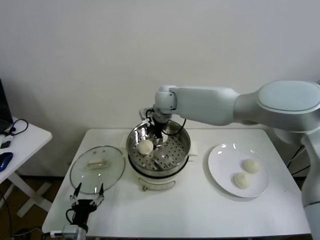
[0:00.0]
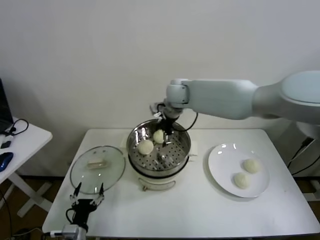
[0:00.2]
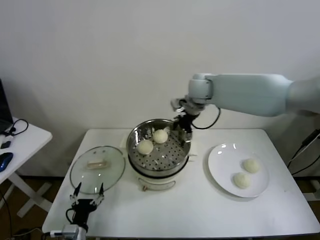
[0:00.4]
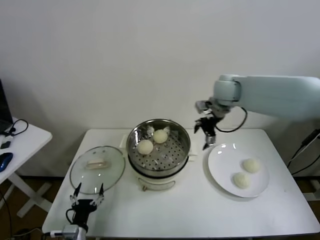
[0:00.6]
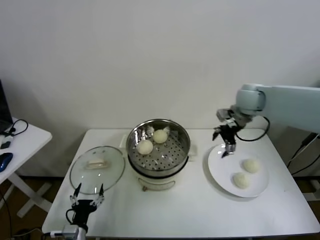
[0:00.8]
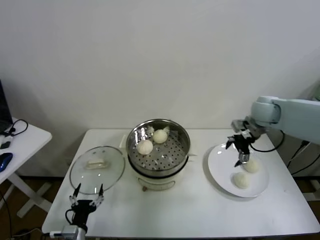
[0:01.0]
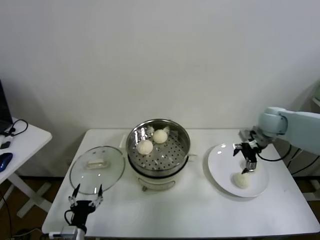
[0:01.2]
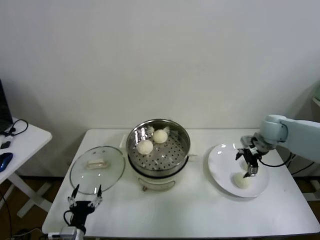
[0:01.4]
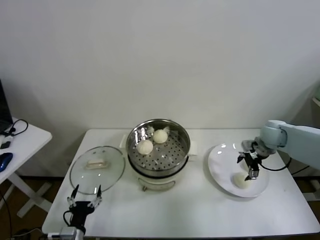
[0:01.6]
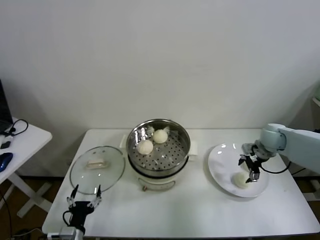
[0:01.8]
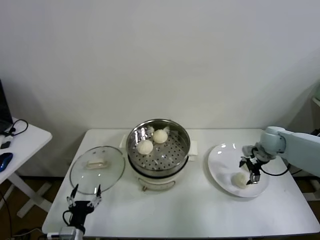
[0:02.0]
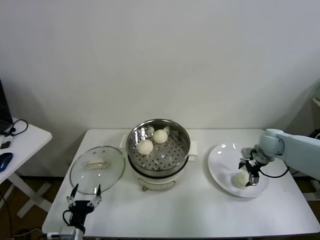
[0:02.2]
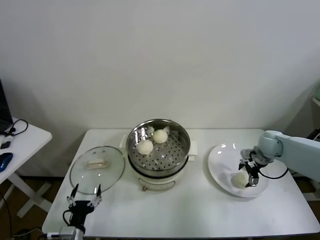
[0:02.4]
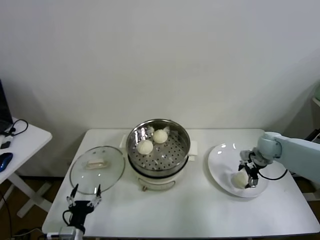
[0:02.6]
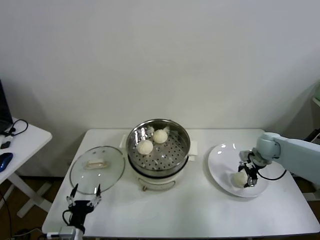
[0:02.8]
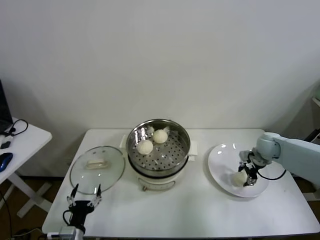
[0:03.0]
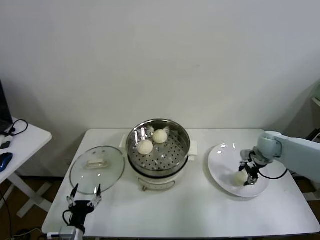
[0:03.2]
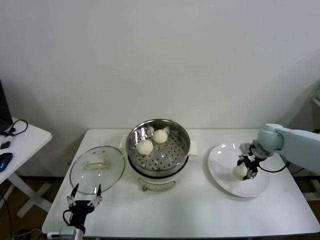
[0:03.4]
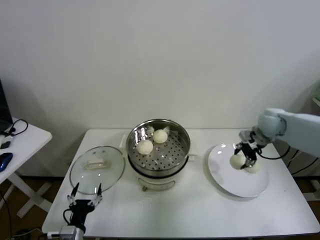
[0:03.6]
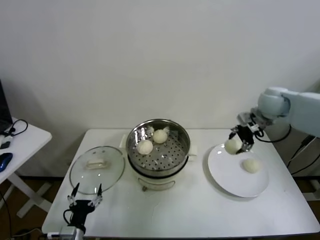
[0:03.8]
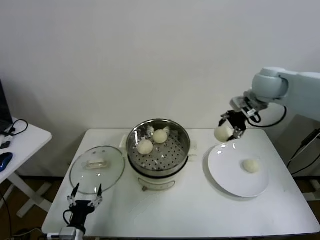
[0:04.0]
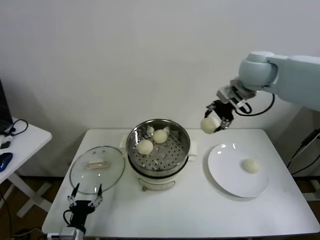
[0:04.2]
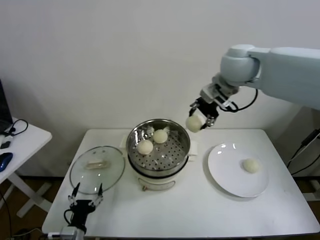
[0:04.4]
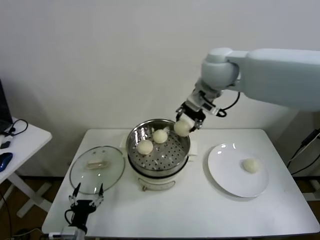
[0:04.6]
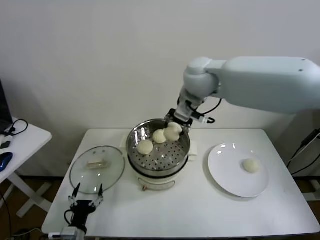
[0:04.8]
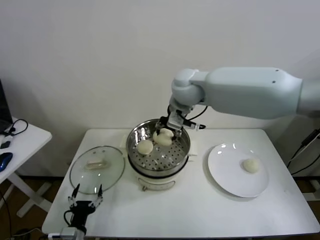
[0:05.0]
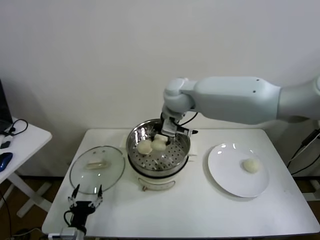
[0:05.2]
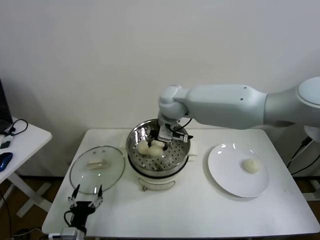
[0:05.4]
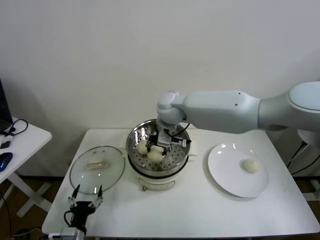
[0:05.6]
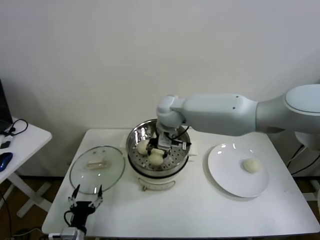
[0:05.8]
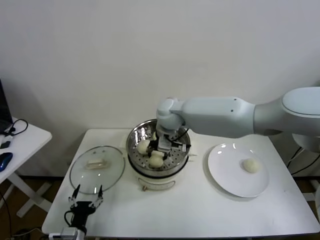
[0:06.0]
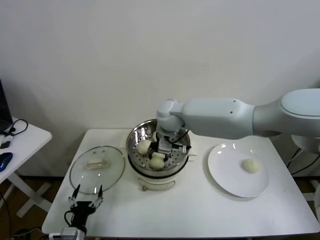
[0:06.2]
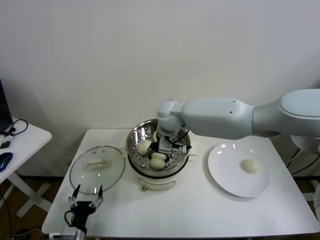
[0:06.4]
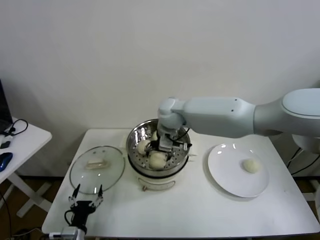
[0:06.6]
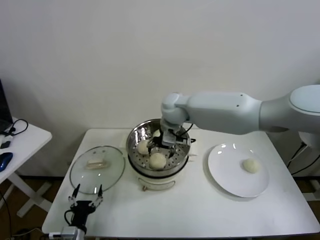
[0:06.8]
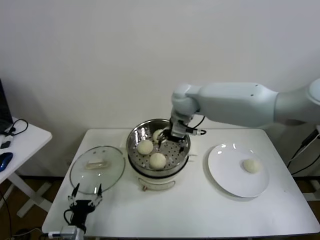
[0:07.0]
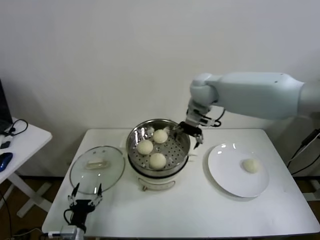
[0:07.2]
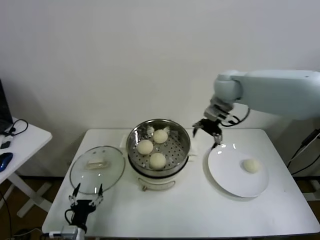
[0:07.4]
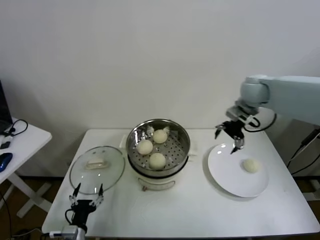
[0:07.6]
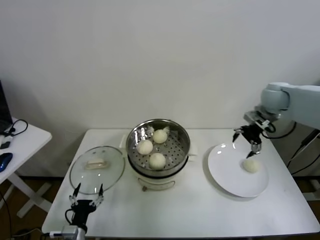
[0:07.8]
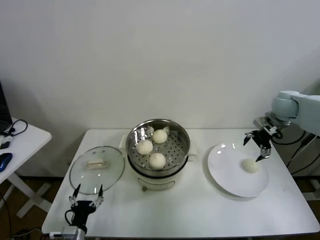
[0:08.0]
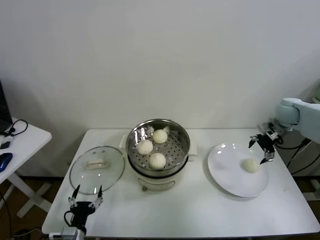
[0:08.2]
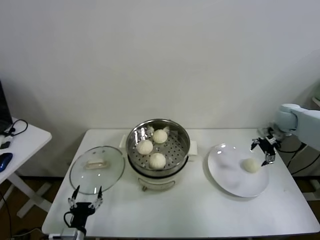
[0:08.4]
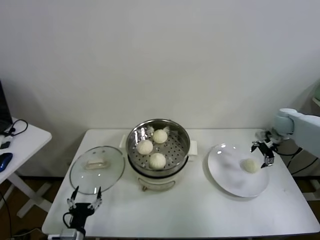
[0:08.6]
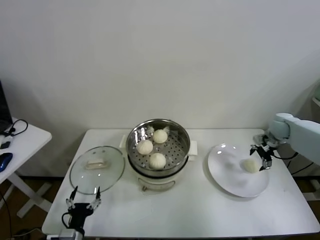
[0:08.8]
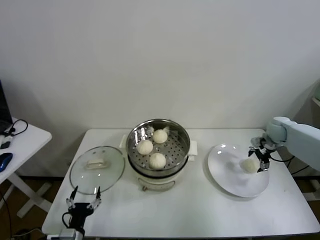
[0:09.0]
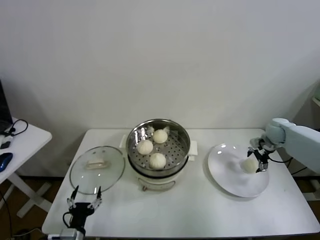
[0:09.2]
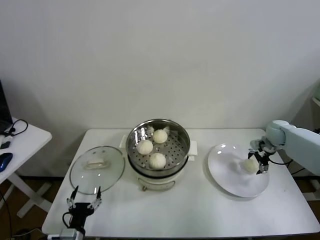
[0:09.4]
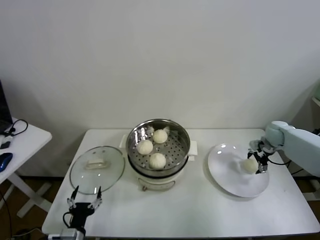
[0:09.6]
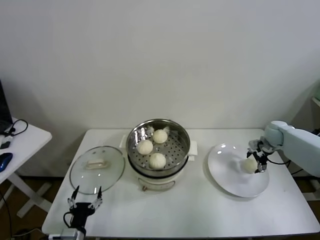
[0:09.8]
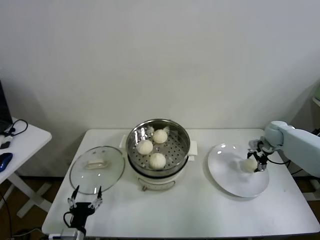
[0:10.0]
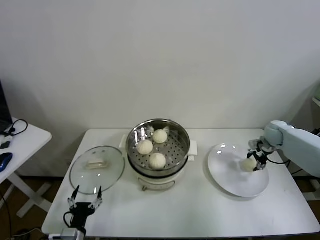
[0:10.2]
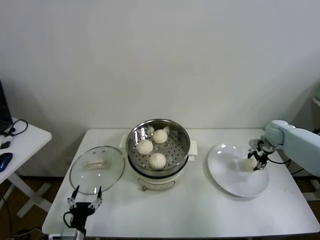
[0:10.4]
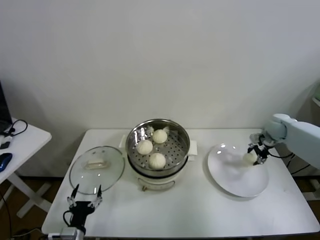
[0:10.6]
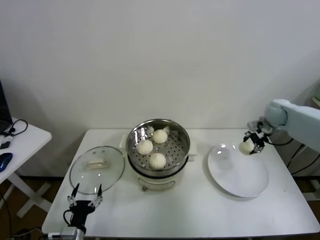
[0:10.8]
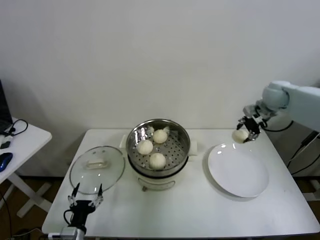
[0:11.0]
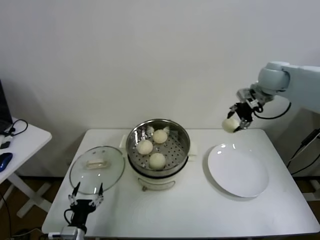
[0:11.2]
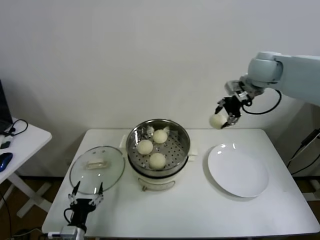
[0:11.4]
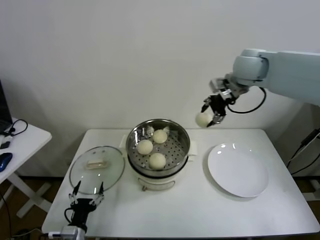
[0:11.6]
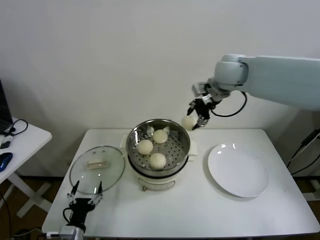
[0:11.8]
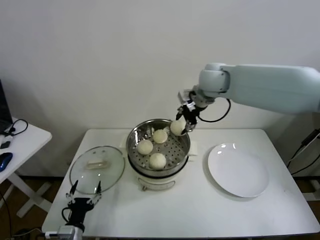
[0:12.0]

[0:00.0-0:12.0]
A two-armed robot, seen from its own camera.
Task of the whole recording: take steamed baozi put them in steamer.
Step, 0.2 to 2.8 s: Grasp the baozi in the plate with right gripper.
Step, 3.0 to 6.8 s: Place the baozi on the steamer with right gripper.
Step, 7.0 to 10.0 s: Grasp the baozi in the plate with right gripper.
0.0 to 1.6 s: The right gripper is displaced to the right by about 35 cm.
1.6 to 3.0 s: The right gripper goes some 5 cm downward, and closes.
3.0 to 4.4 s: The right gripper moves upward and to the left, some 40 cm.
4.4 to 6.0 s: The right gripper is displaced downward and to the left by some 25 cm.
6.0 to 7.6 s: The right gripper is displaced to the right by approximately 30 cm, and opens its fingers.
7.6 to 9.0 s: The right gripper shifts about 25 cm downward and to the right.
9.0 to 10.4 s: The right gripper closes up.
10.4 to 12.0 s: The right gripper shifts about 40 cm to the left and upward.

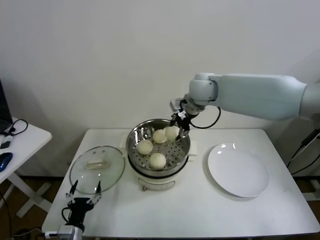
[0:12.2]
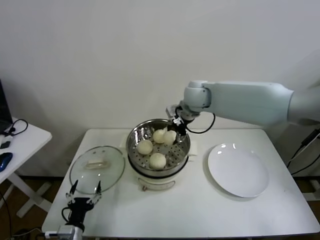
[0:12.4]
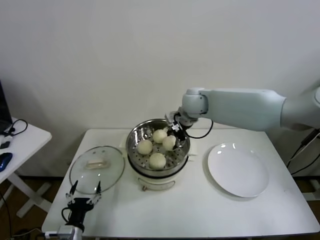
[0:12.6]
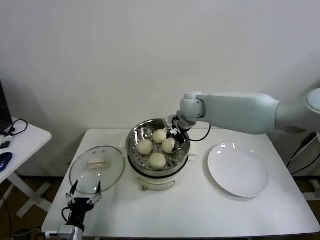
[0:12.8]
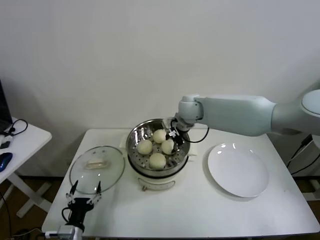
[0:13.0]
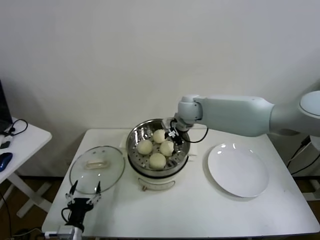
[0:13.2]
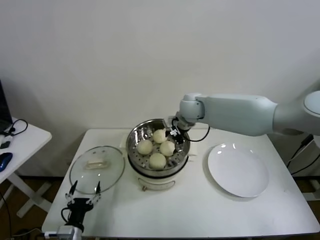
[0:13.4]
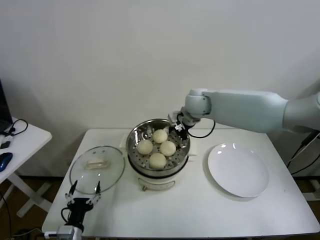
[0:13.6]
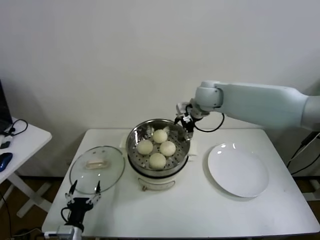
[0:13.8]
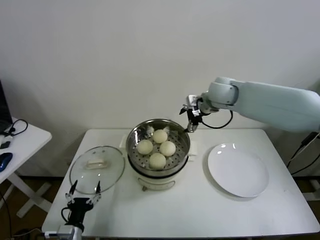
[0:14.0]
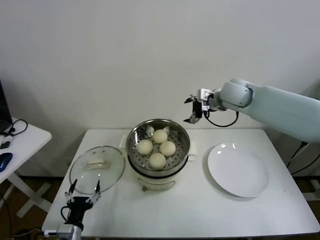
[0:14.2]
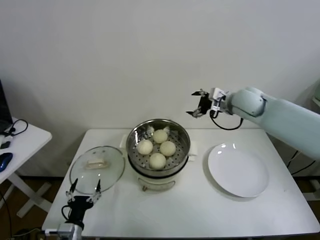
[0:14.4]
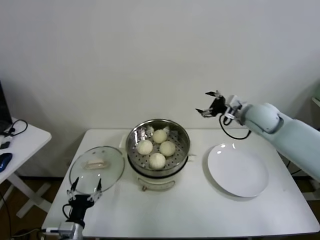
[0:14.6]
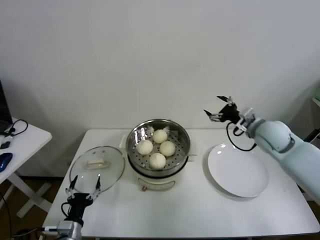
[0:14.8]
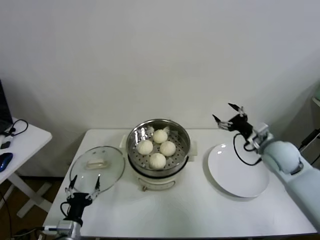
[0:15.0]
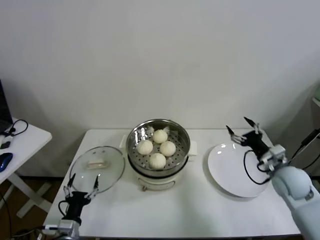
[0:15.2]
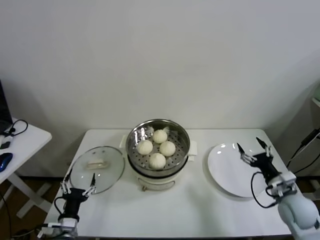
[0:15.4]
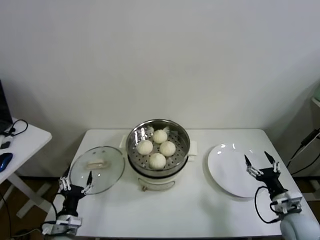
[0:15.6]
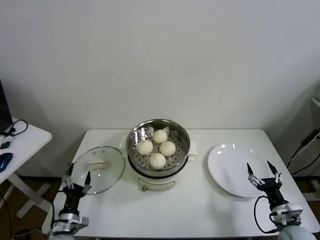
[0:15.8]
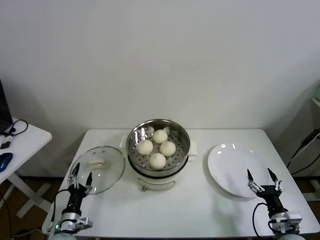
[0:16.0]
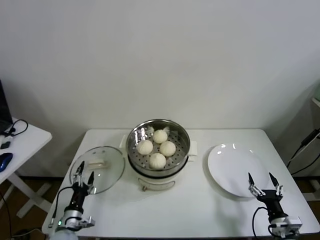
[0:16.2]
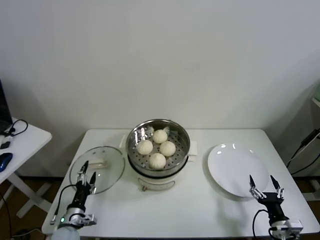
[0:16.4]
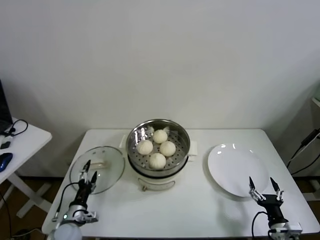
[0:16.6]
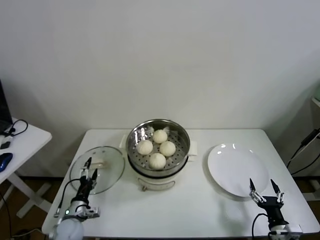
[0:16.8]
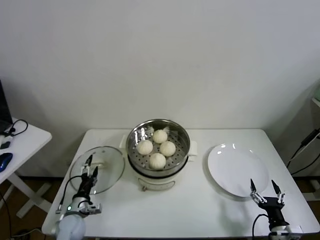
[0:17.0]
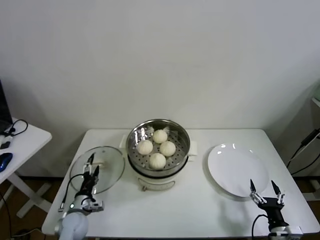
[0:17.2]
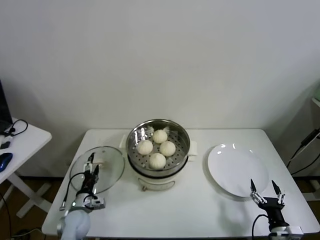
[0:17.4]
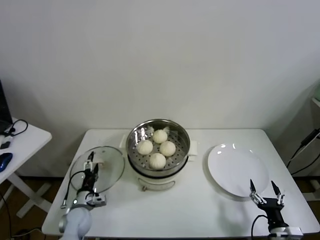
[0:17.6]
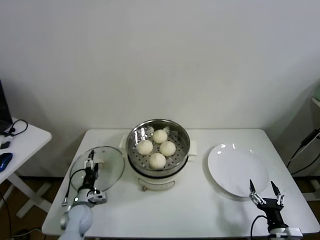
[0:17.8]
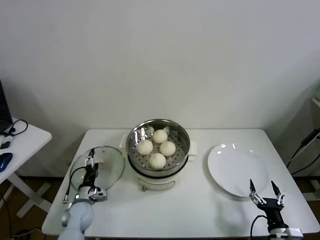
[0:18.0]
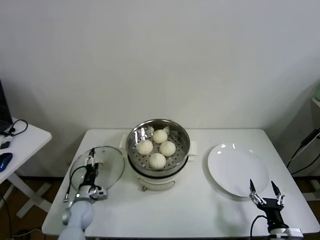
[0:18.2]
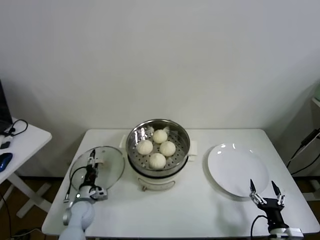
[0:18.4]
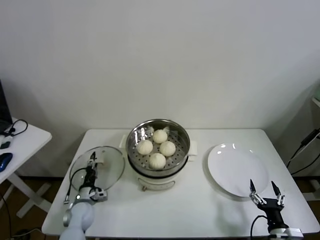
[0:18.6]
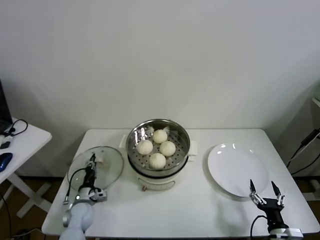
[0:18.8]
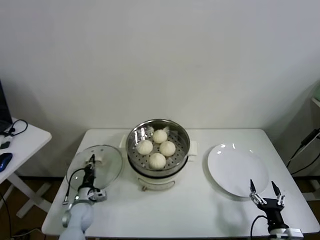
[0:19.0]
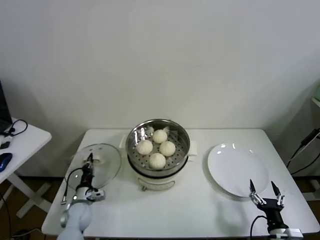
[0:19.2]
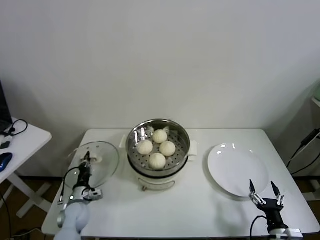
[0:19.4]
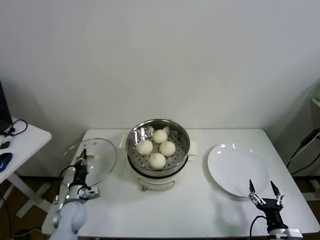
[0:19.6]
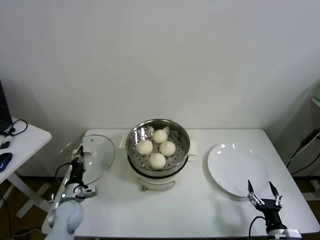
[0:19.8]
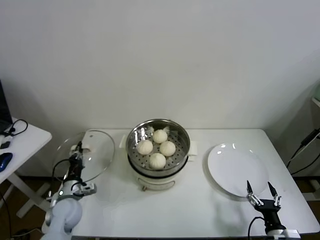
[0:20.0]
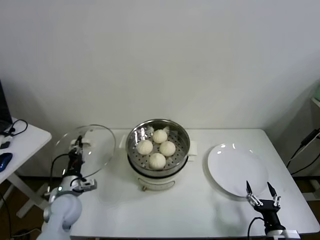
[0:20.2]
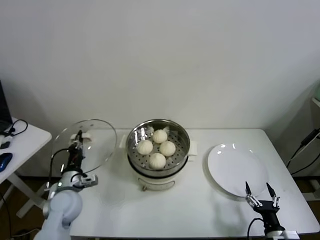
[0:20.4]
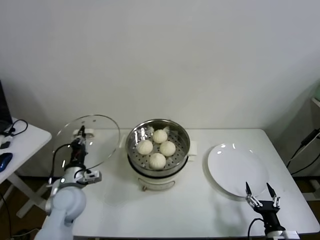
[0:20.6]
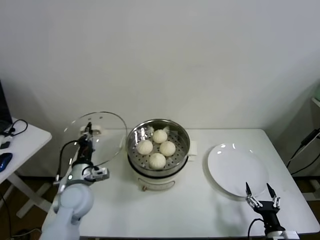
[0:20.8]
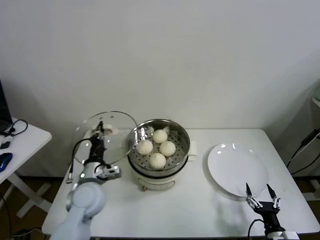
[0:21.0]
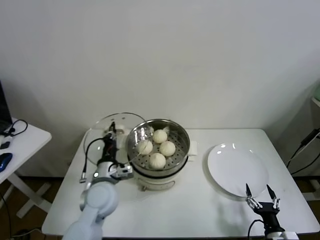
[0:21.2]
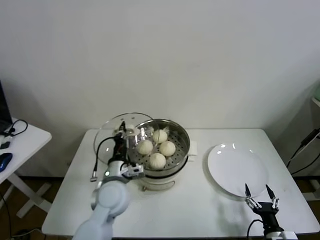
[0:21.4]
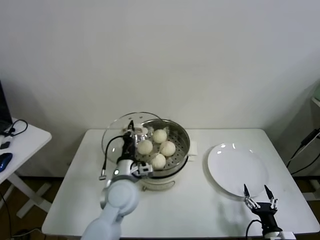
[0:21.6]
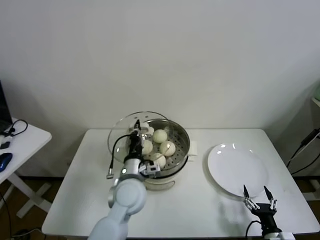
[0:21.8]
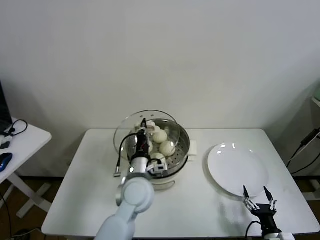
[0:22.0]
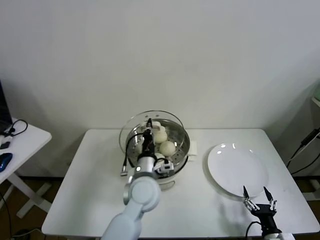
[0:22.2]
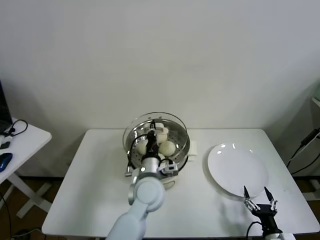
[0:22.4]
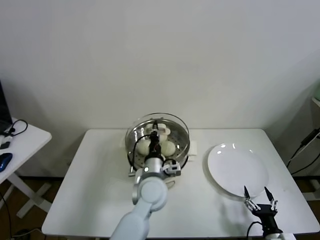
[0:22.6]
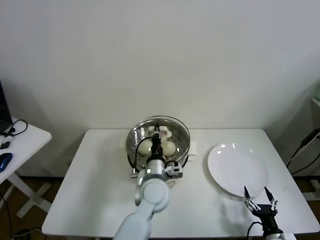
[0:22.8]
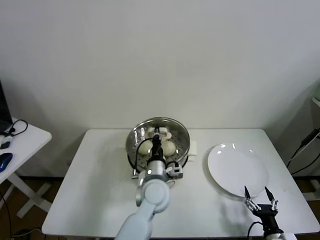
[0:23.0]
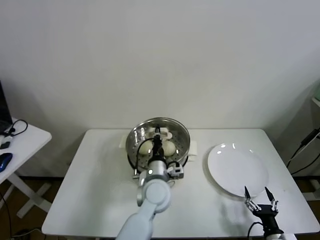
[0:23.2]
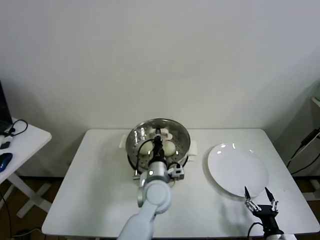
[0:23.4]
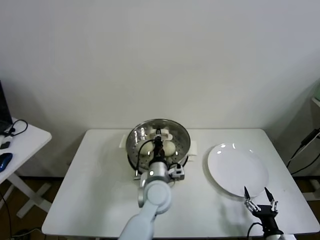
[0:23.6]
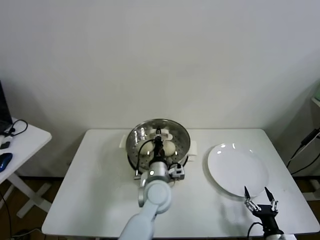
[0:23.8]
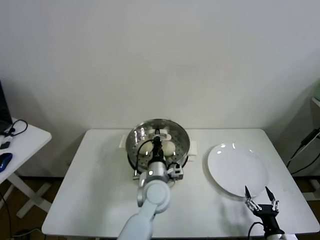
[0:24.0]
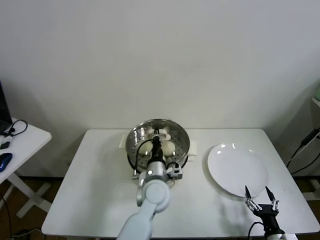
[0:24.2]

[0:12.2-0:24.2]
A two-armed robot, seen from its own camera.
Task of the whole recording: take steamed baozi put them in steamer.
Step, 13.6 to 18.8 s: Grasp the pot lid with left gripper.
12.2 to 13.8 s: The right gripper reaches roughly 10 cm downward, then returns, and opens.
13.8 to 15.2 s: The right gripper goes about 35 cm to the right, backward and downward.
15.2 to 16.6 s: The left gripper moves forward and downward, roughly 10 cm. The right gripper heads backward and downward, covering roughly 25 cm.
16.6 to 18.2 s: The left gripper shifts about 10 cm forward.
18.2 to 19.8 s: The left gripper changes place by roughly 5 cm, and closes.
19.8 to 21.2 s: The left gripper goes approximately 20 cm to the right and upward.
21.2 to 22.6 s: The left gripper shifts approximately 15 cm to the right.
22.6 to 24.2 s: The grippers stay close to where they were, moving slightly.
